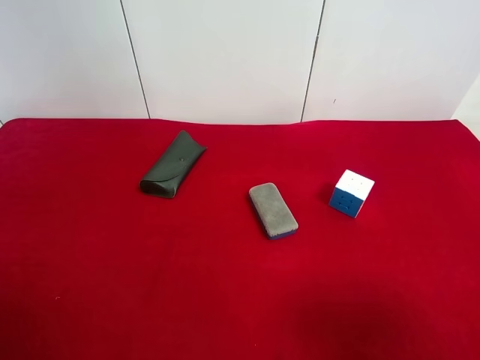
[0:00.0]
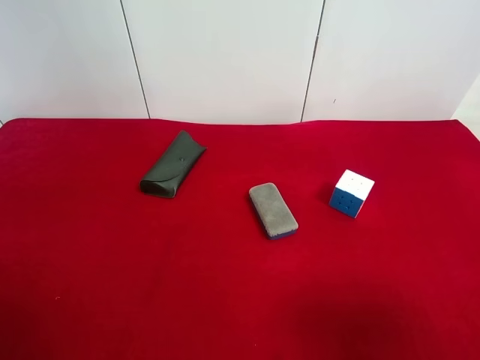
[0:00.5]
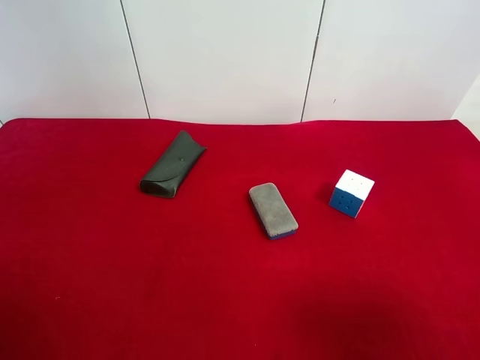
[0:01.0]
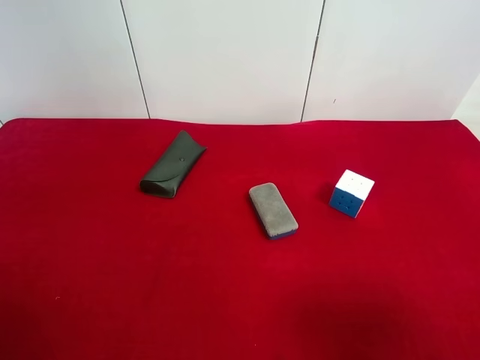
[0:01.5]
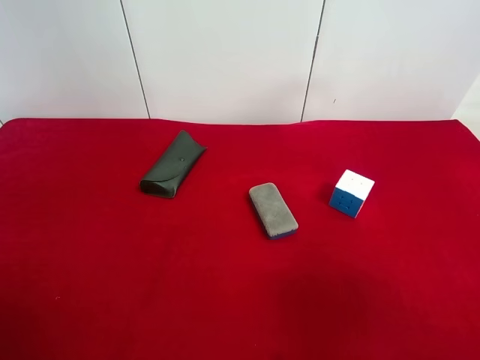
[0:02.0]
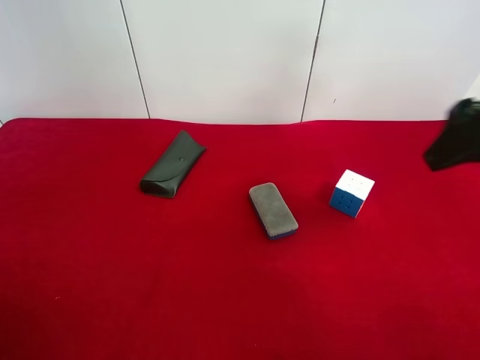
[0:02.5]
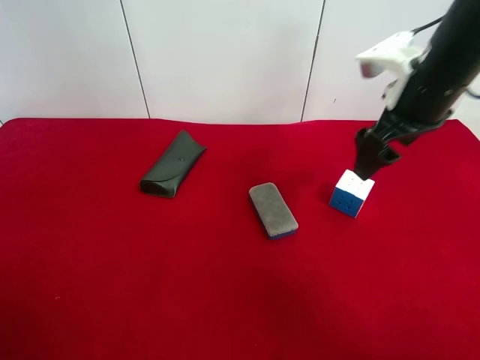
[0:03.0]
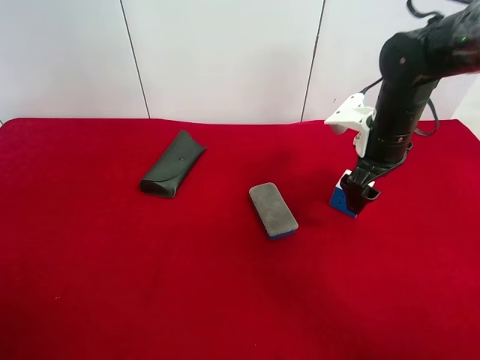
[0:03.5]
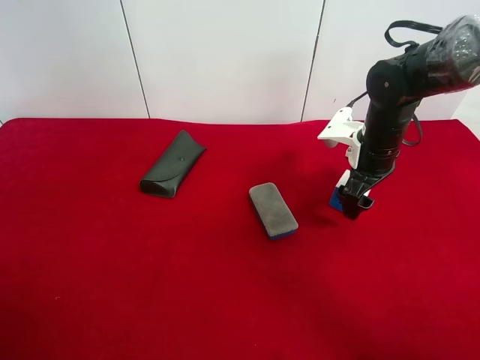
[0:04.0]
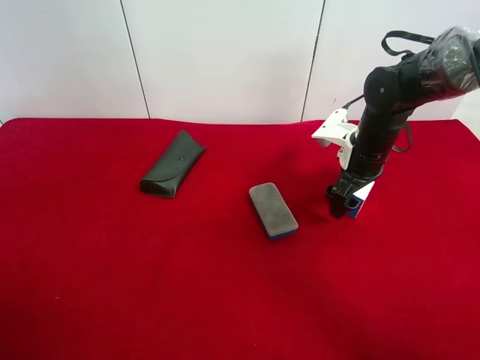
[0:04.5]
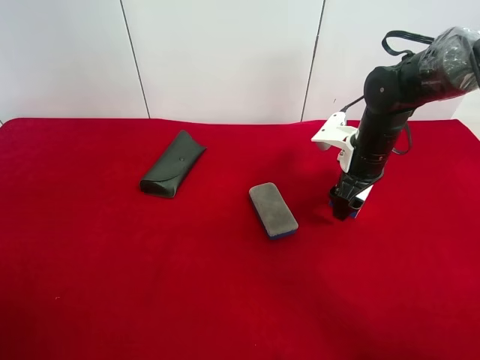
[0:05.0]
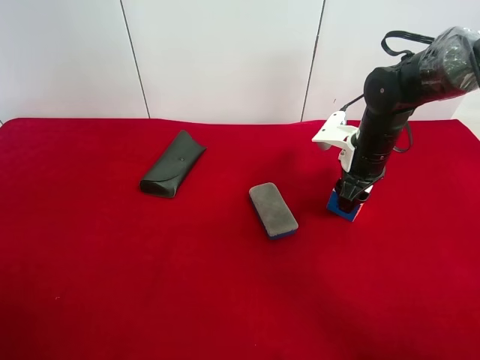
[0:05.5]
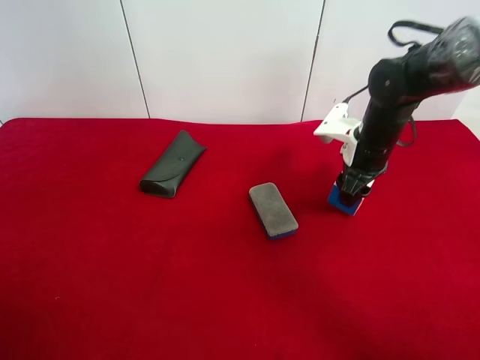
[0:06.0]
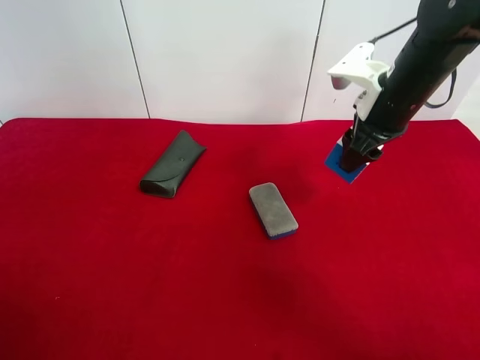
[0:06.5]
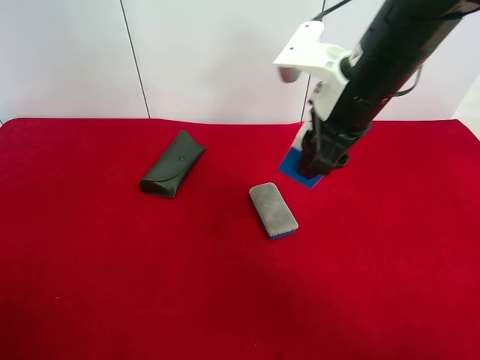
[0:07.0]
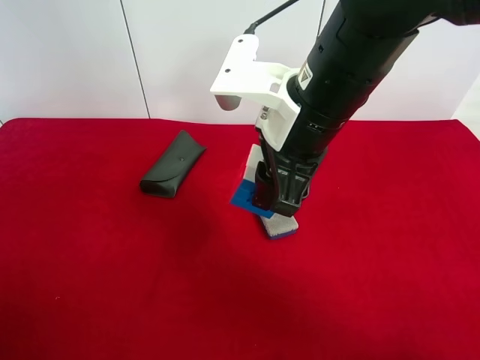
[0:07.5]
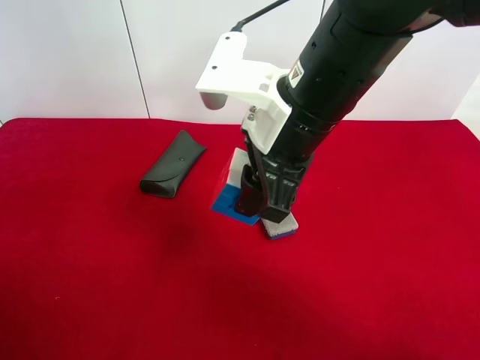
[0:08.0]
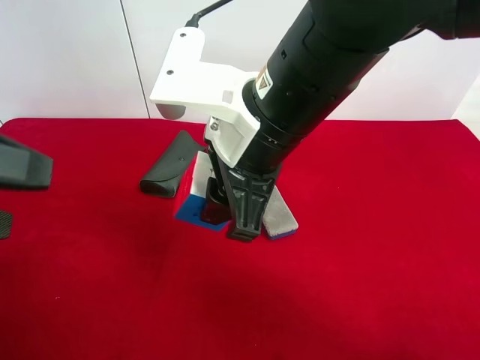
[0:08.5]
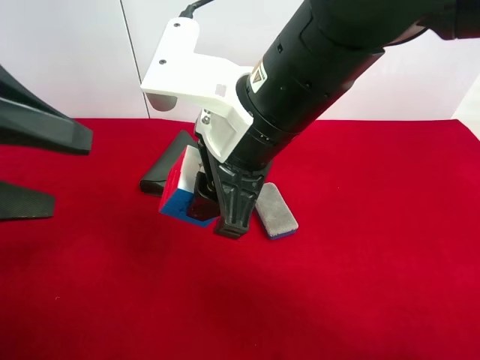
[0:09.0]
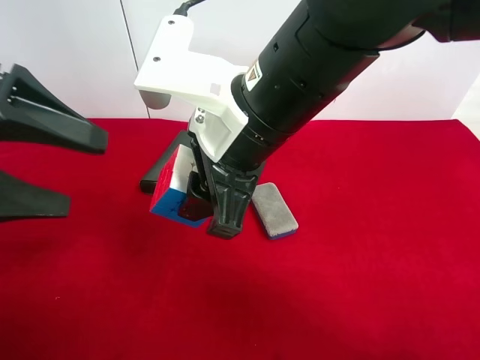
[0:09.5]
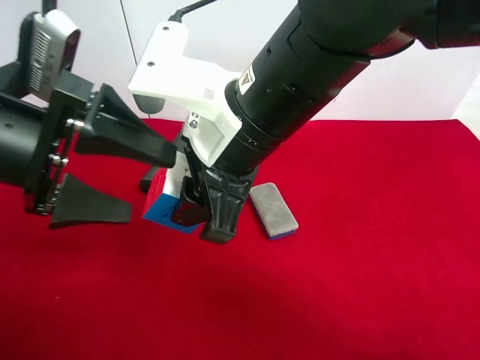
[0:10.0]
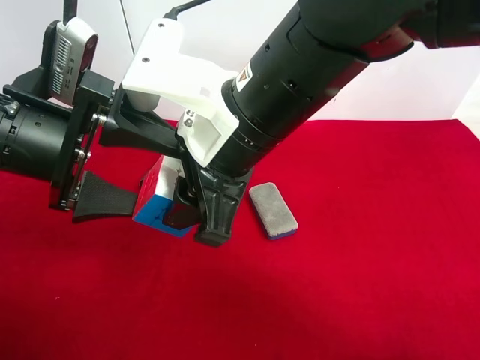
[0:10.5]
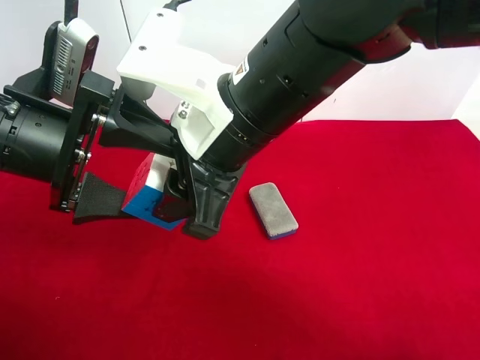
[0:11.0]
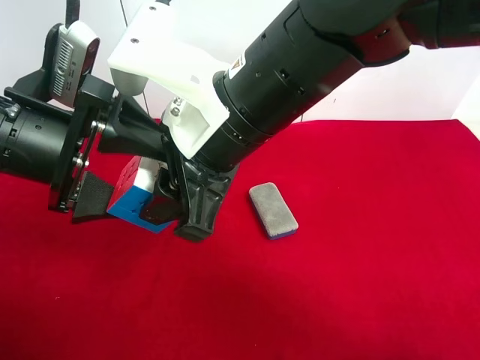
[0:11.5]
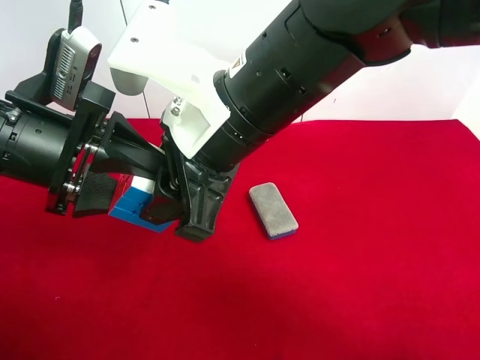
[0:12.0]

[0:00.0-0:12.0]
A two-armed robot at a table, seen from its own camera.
Task of the whole recording: use the right gripper to pick up the item and transfer it from the right gripper to the left gripper.
Step, 0:00.0 to 0:05.5: Use the right gripper to grab the Rubik's Cube on the right side of the table.
0:02.0 to 0:04.0: The right gripper moves forward and downward, about 35 cm.
0:04.0 to 0:06.0: The right gripper closes its fingers.
0:06.0 to 0:08.0: The right gripper heads to the left, backward and upward, covering roughly 25 cm; the left gripper is displaced forward by some 5 cm.
0:08.0 to 0:10.0: The left gripper moves forward and to the right, about 15 cm.
0:10.0 to 0:12.0: The left gripper closes up.

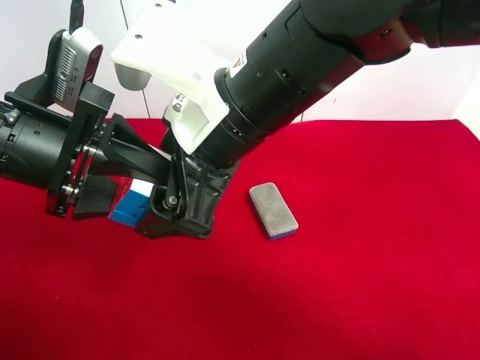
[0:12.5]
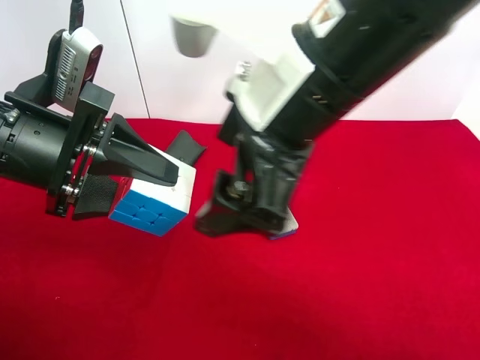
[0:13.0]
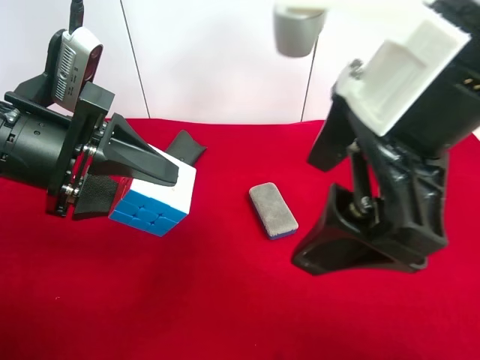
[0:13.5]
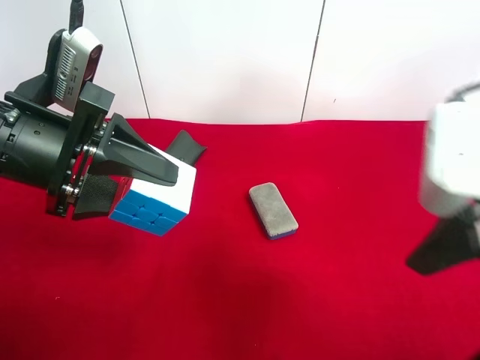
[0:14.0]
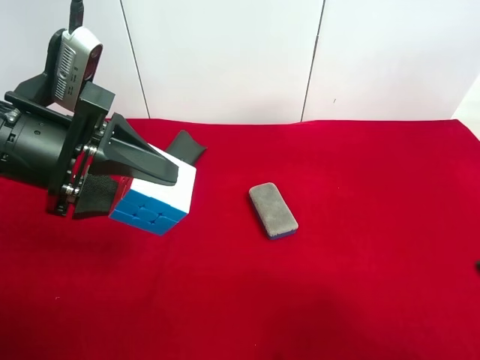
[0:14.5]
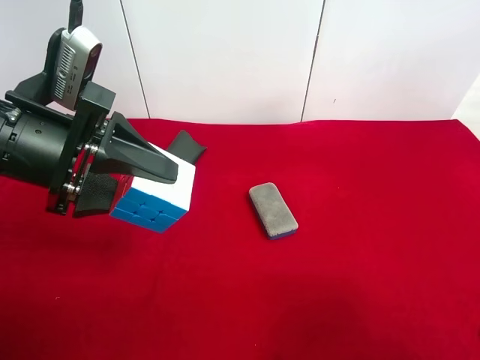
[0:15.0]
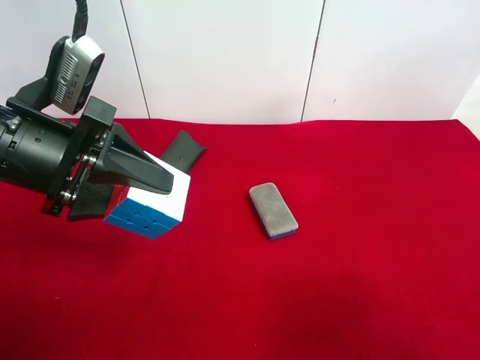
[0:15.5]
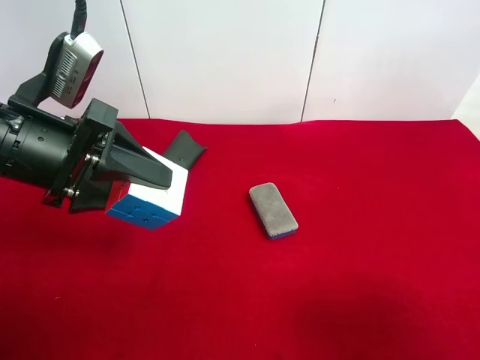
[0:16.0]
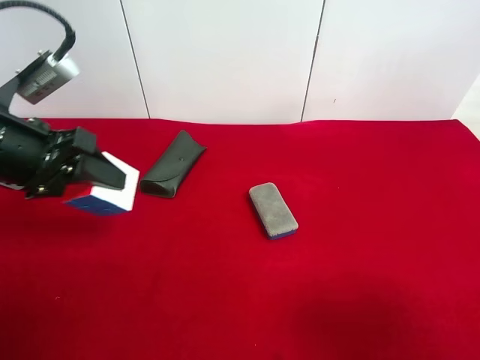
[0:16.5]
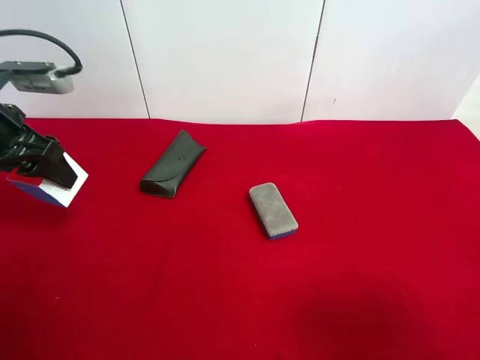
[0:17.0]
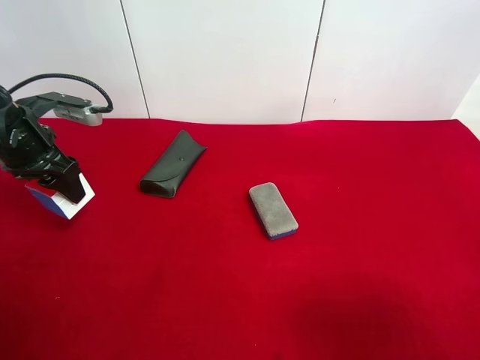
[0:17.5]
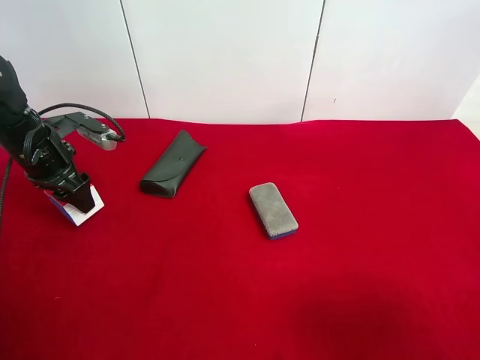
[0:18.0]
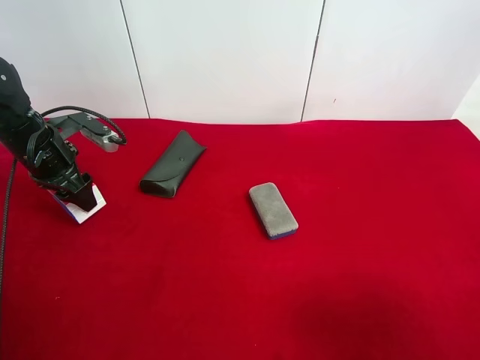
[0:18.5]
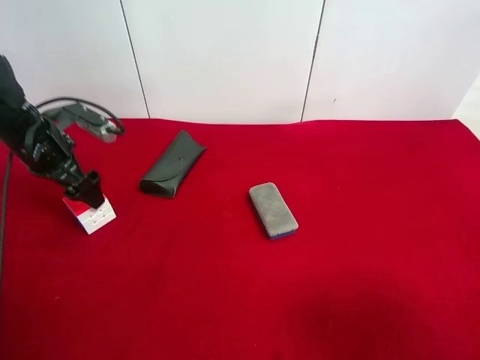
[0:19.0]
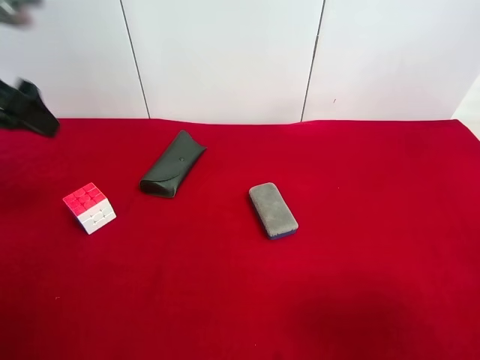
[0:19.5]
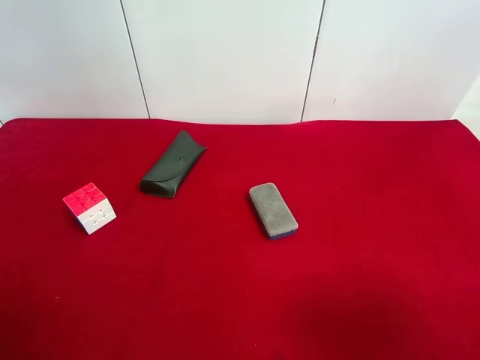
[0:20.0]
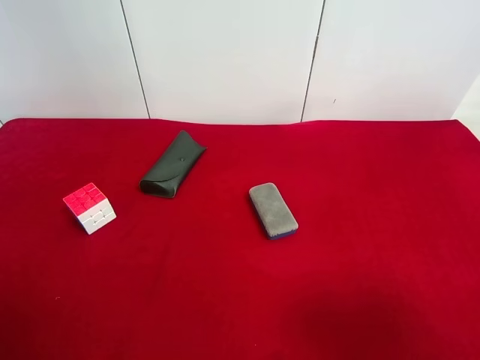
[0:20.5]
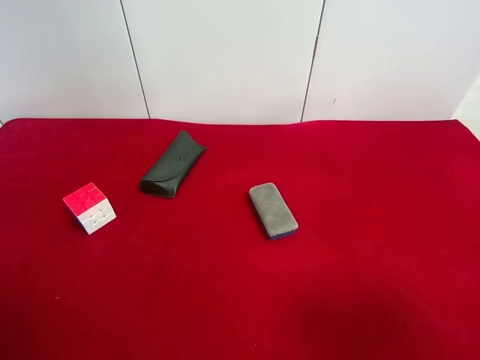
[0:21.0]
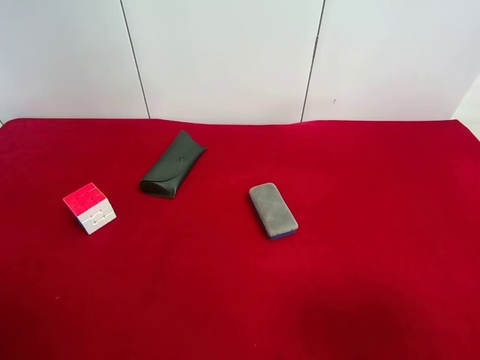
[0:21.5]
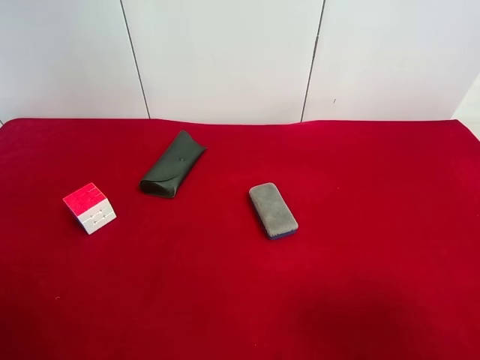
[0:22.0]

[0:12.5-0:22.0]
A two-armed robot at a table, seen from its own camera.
Task of the whole recording: use the right gripper to pick up the item and transfer it from the right gripper to the left gripper.
Step, 0:12.5 to 0:18.5: The left gripper places Rubik's Cube on the left side of the table.
0:12.5 to 0:14.5: The right gripper shifts roughly 30 cm to the right and backward.
0:14.5 to 0:16.5: The left gripper heads to the left, covering roughly 5 cm.
0:16.5 to 0:18.0: The left gripper travels forward and downward by about 15 cm.
0:18.0 to 0:20.0: The left gripper travels backward and upward by some 35 cm, and opens up.
